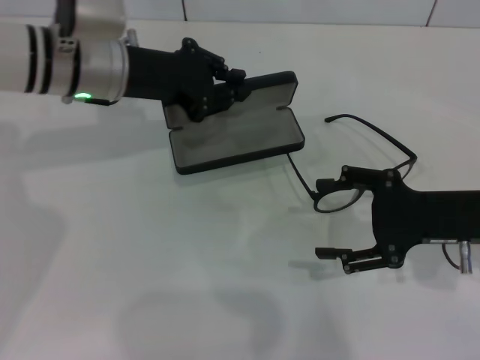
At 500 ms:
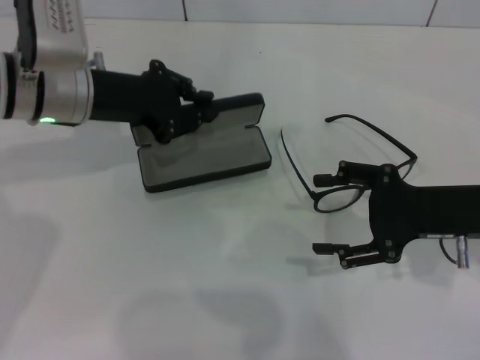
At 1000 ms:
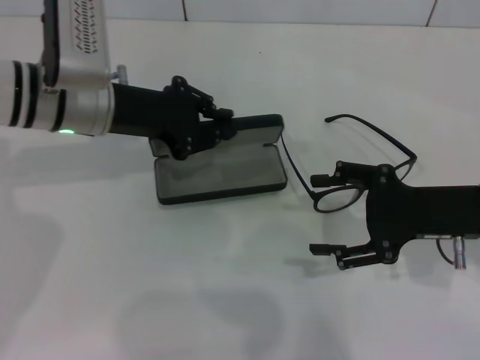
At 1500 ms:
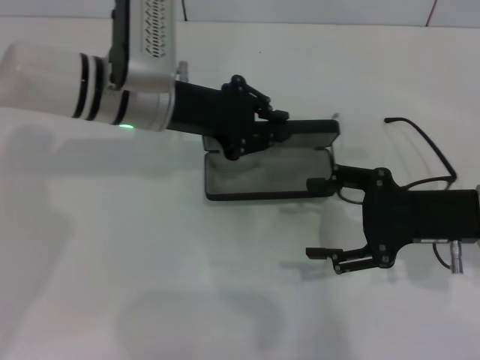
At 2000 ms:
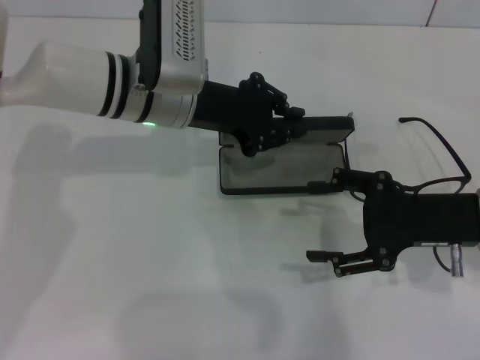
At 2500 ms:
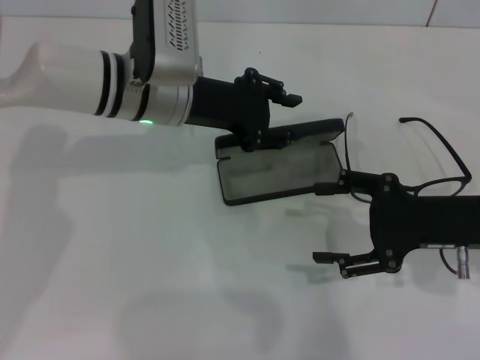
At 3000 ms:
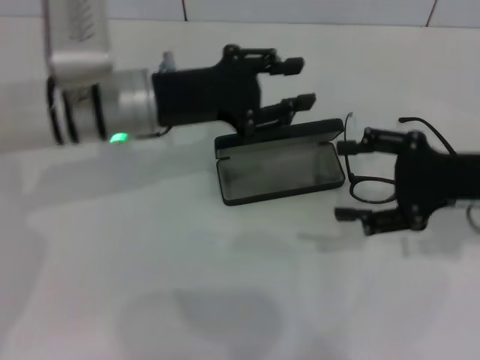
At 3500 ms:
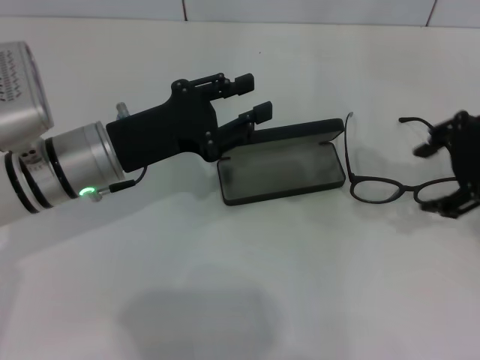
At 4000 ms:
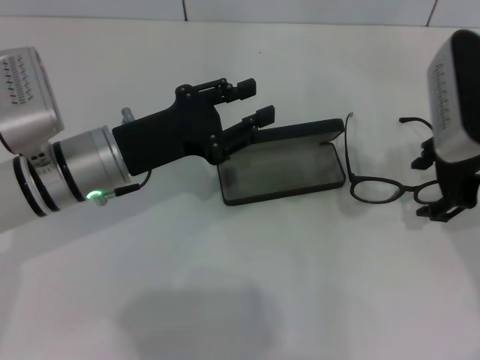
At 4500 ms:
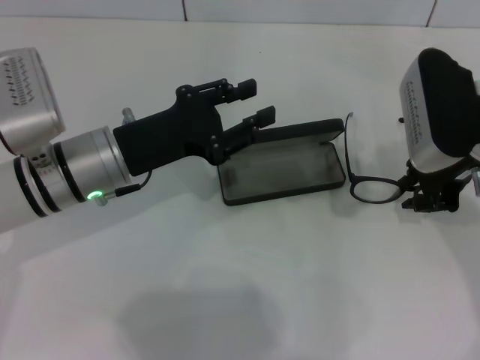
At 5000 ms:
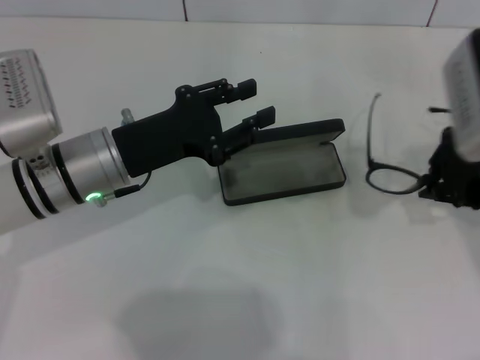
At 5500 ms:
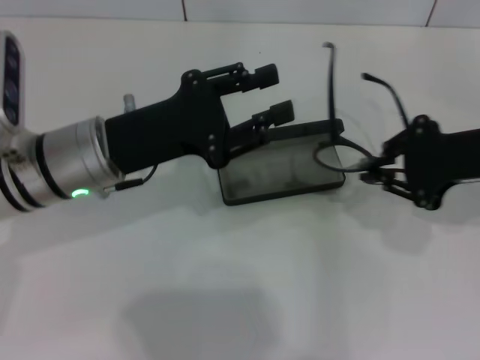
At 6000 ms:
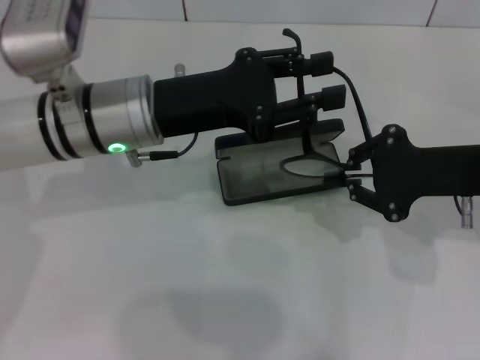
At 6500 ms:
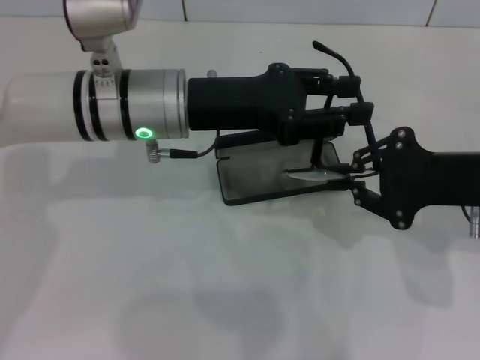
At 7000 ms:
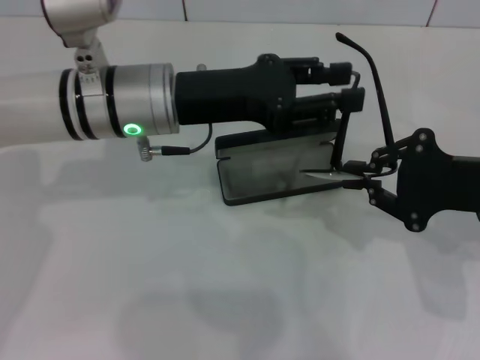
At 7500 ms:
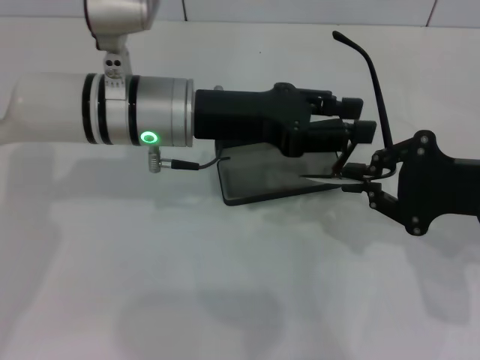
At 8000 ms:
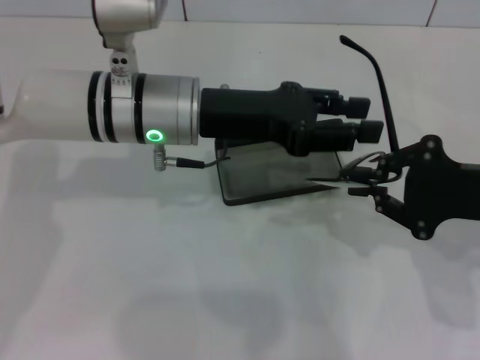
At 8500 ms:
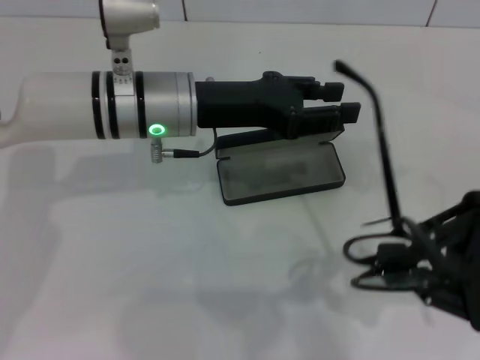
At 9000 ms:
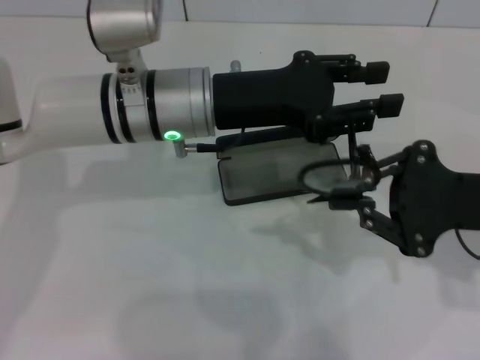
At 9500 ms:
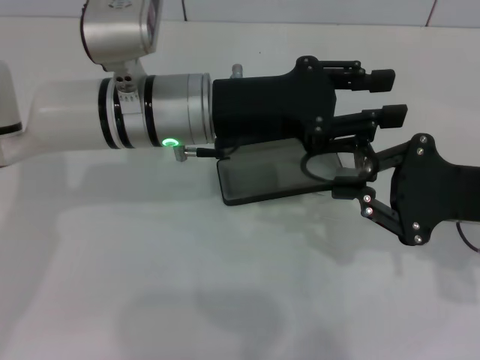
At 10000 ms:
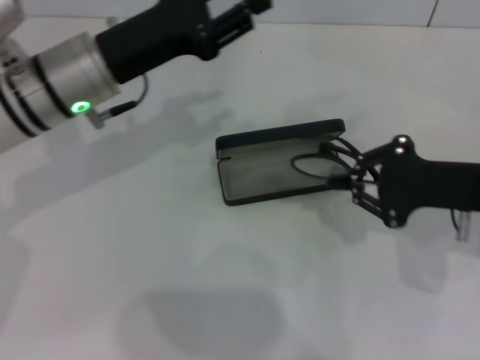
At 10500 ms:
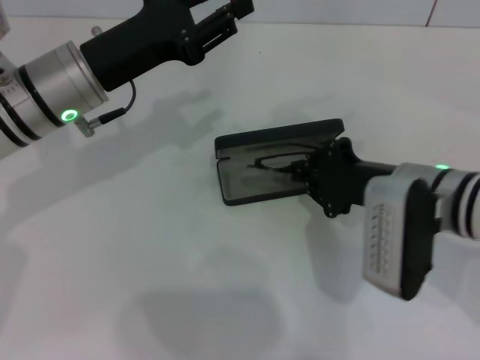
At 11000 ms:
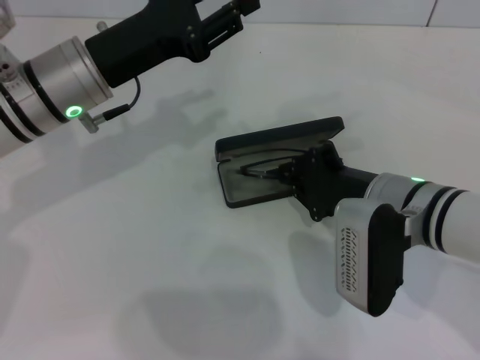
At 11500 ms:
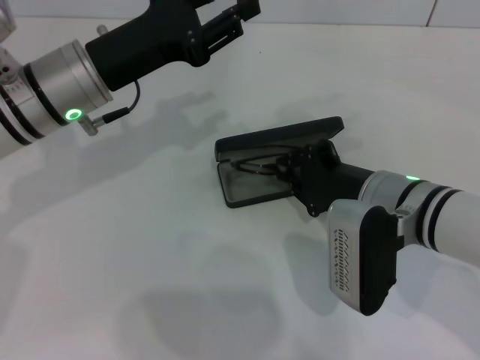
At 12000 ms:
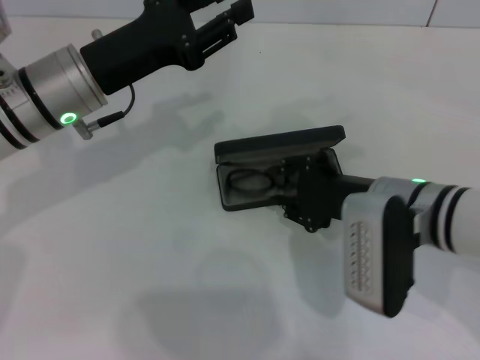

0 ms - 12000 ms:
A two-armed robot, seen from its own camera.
Step, 0 ms - 2000 ms: Place the glasses case in the center of the table with your left hand.
Step, 3000 ms - 4000 ms: Grab the eyeglass frame with your right hand.
Step, 5000 ms - 9500 ms: Fold the frame with your left hand.
Step, 10000 ms - 12000 ms: Put the glasses into the case with your right hand.
0 ms - 2000 ms: The left gripper shifts some 5 cm to the right.
2000 ms - 4000 ms: The left gripper is displaced backward and to the left by about 10 cm, and opens. The right gripper moves upward and forward, about 10 cm.
4000 ms - 6000 ms: The right gripper changes place by roughly 5 cm, and closes up. Meanwhile the left gripper goes approximately 5 cm upward.
8000 ms - 10000 ms: The left gripper moves to the left, about 5 cm.
10000 ms - 12000 ms: The right gripper heads to the left, covering roughly 10 cm.

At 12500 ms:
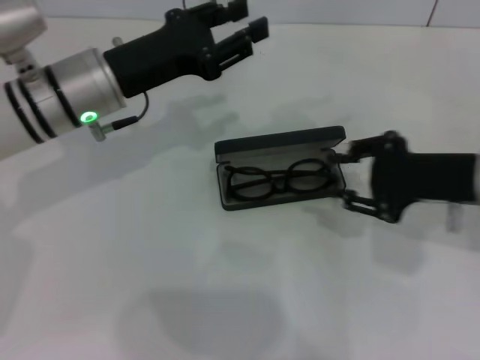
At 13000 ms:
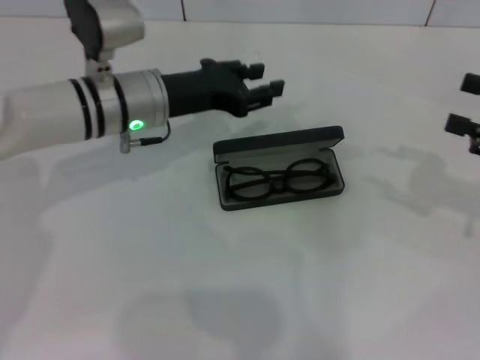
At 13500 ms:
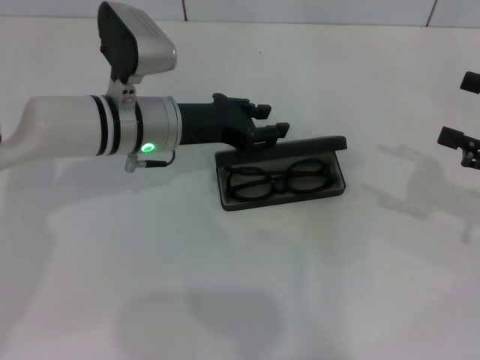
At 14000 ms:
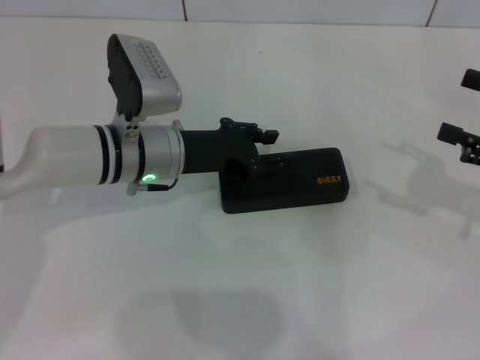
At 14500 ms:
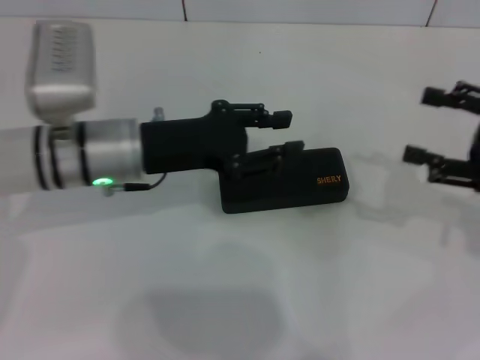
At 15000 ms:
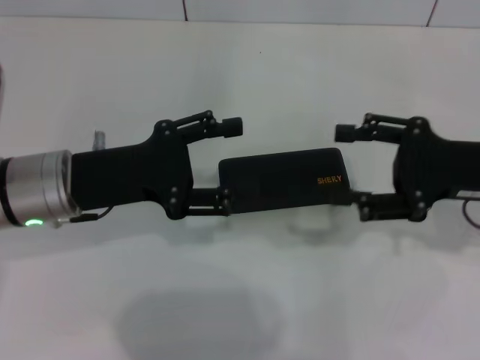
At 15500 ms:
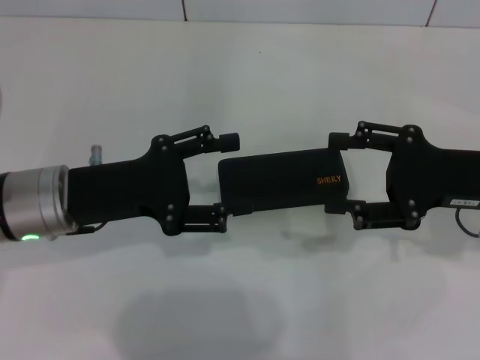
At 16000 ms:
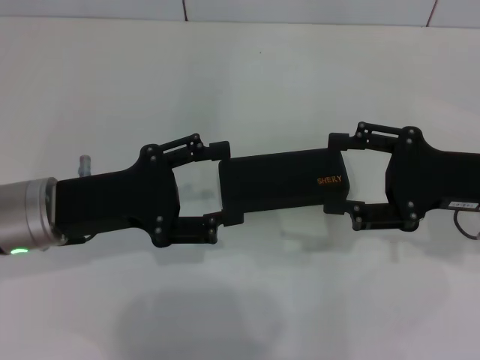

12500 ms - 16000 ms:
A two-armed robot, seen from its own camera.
Step, 12500 ms - 14000 ms: Close the glasses case with your left hand.
12500 ms - 14500 ms: The right gripper goes approximately 10 cm to the right, and opens its fingers.
14500 ms - 16000 ms: The left gripper shifts approximately 10 cm backward and to the left, and opens up, while the right gripper is displaced to the left by about 5 cm.

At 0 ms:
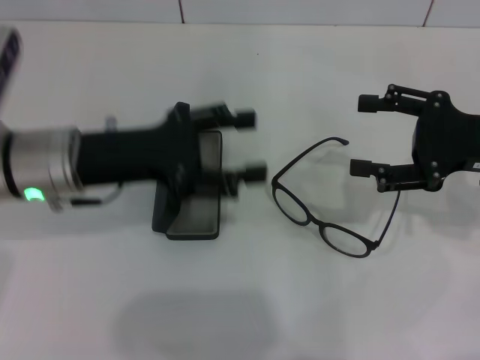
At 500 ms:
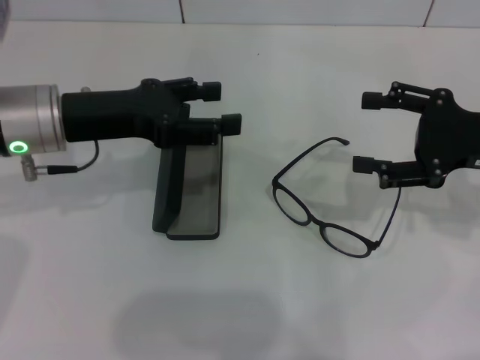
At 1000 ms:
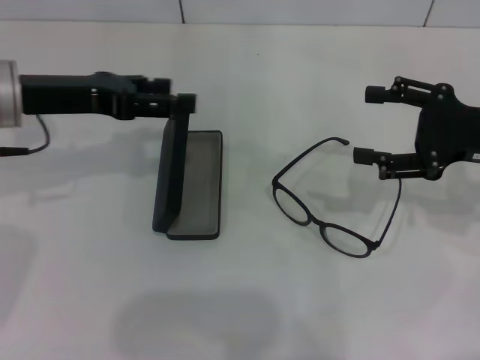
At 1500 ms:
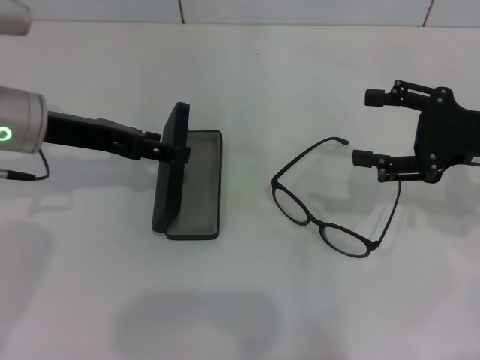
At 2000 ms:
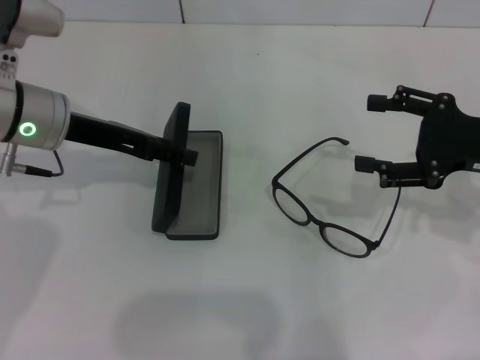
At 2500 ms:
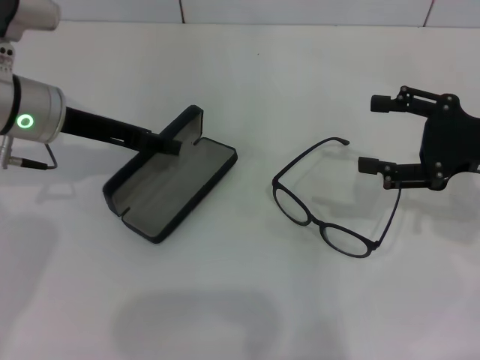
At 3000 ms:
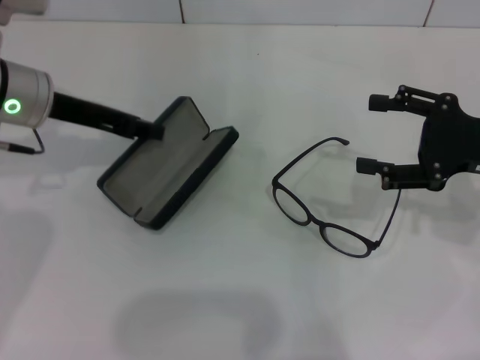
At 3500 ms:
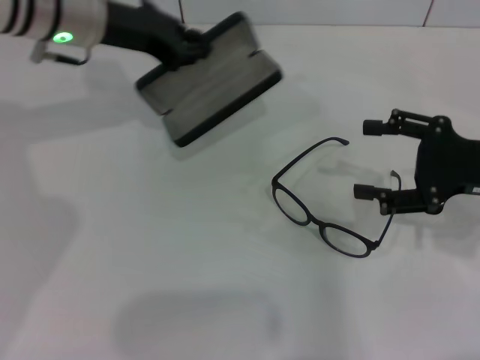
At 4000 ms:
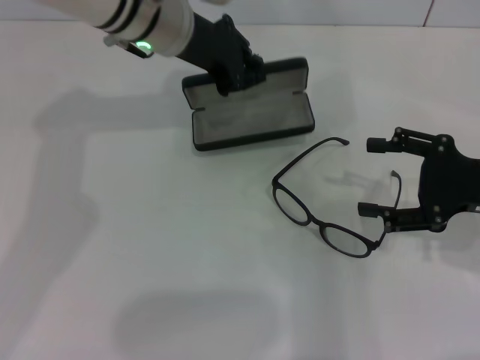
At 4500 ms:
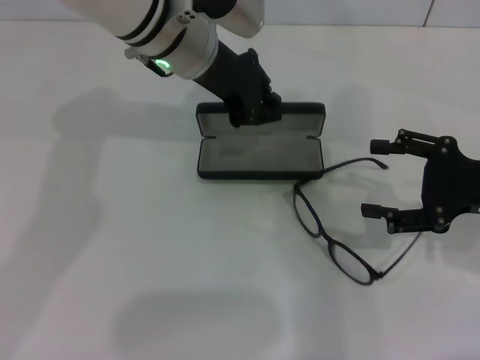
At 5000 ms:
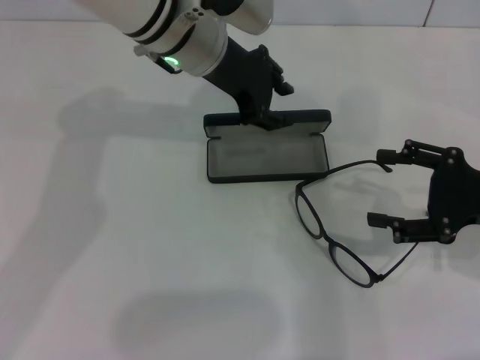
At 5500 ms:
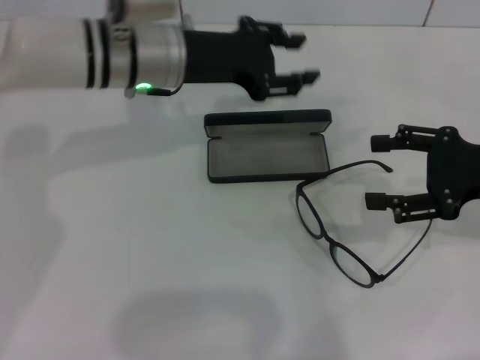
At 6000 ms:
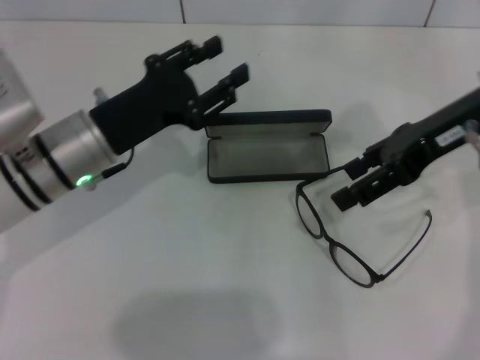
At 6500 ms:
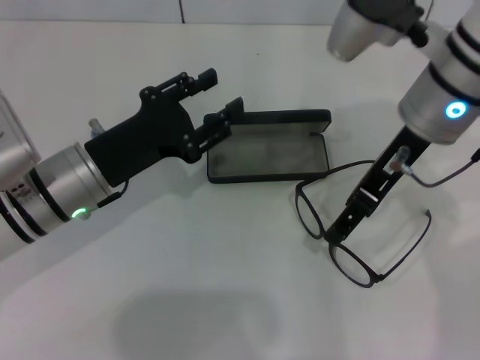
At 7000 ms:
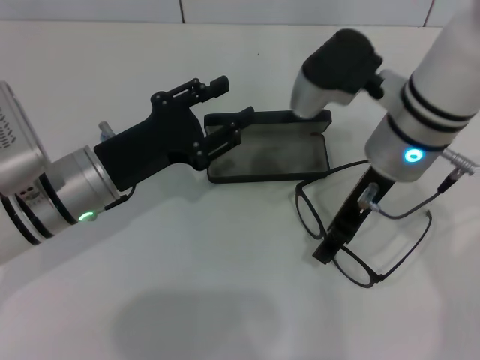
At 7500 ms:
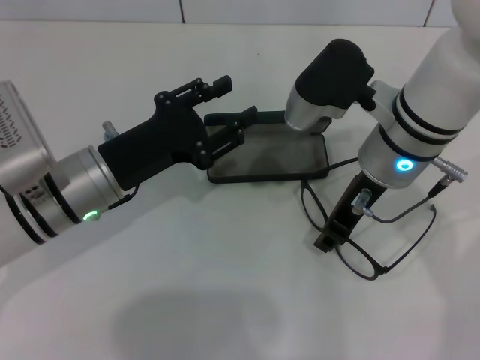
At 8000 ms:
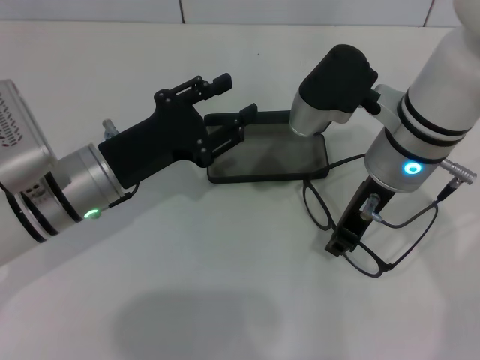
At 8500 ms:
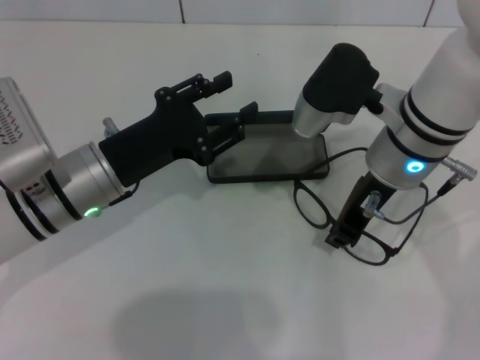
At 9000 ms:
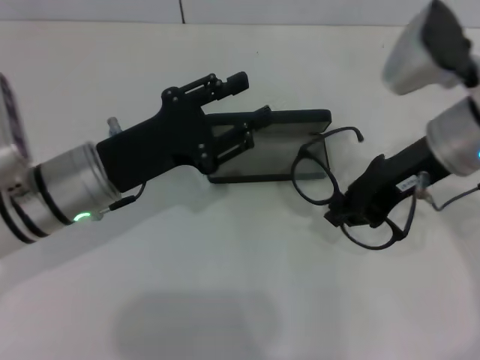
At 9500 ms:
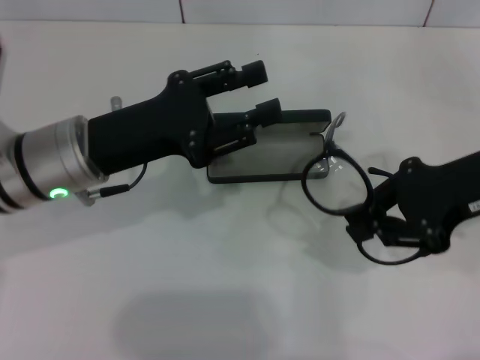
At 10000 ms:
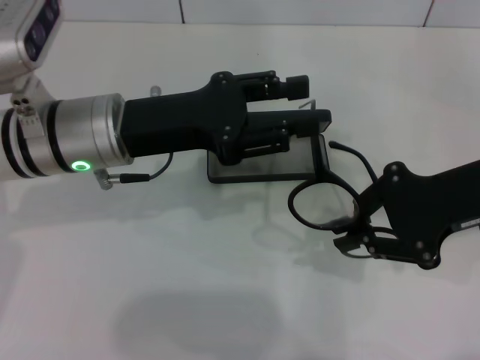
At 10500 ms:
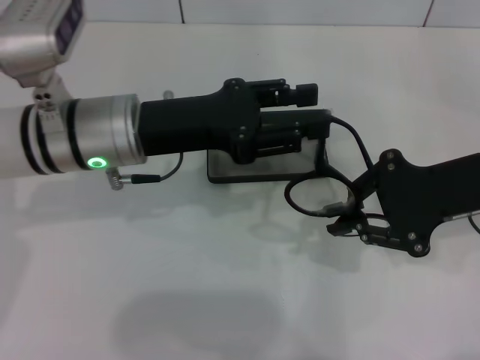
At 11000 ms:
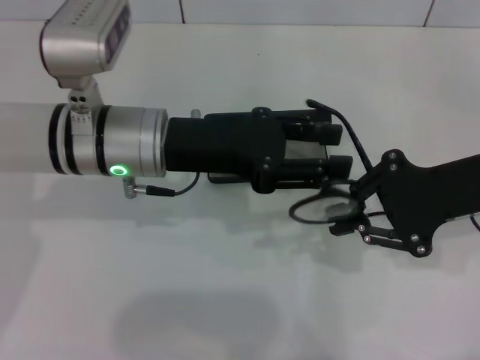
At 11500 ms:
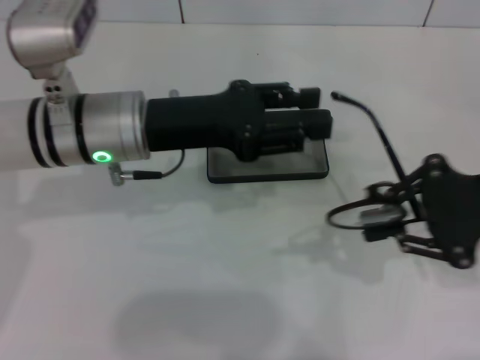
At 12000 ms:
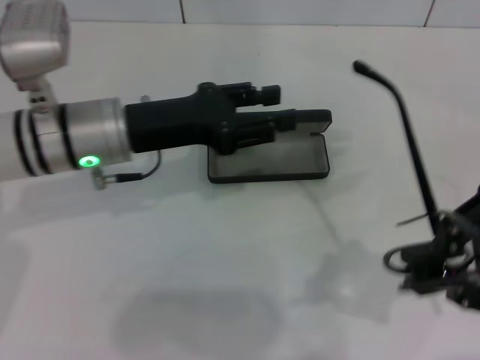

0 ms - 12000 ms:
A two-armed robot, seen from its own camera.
Step, 0 ms - 2000 ms: Grab the glasses case with your left hand.
Step, 2500 ms - 4500 ms: Place the glasses case in the center of the table with your left hand.
Step, 5000 ms - 8000 ms: Grab the eyeglass frame with your right hand.
0 ms - 2000 ms: The left gripper is displaced forward by approximately 5 cm.
2000 ms - 4000 ms: The left gripper heads to the right and forward, covering roughly 15 cm, and closes up.
4000 ms - 6000 ms: The right gripper goes about 15 cm upward, to the left and forward. Meanwhile the left gripper travels backward, downward and to the left by roughly 15 cm, and opens up.
6000 ms - 8000 ms: The right gripper shifts some 10 cm to the left and downward, and closes its fingers.
8000 ms - 10000 ms: The left gripper travels upward by roughly 5 cm. Meanwhile the right gripper goes roughly 10 cm to the right.
10000 ms - 12000 ms: The right gripper shifts some 5 cm backward.
